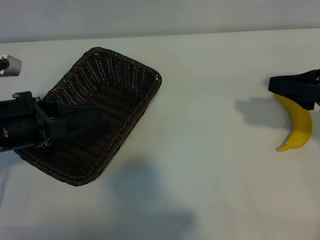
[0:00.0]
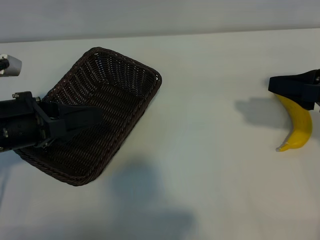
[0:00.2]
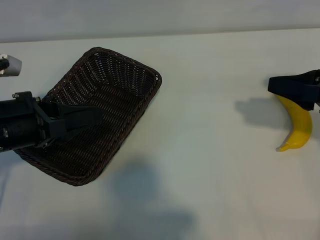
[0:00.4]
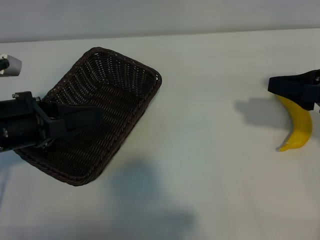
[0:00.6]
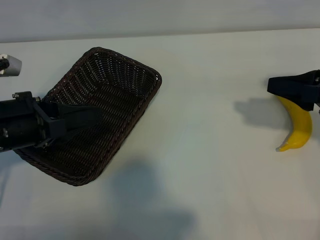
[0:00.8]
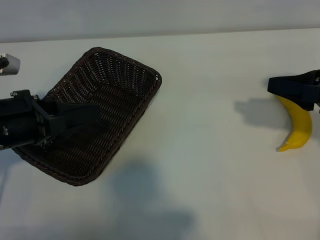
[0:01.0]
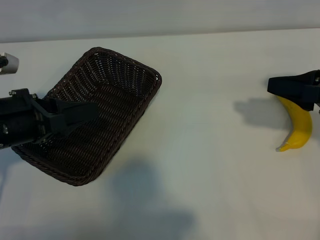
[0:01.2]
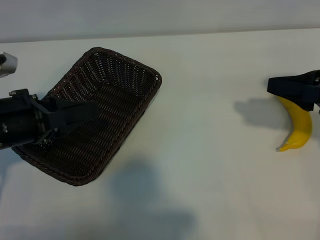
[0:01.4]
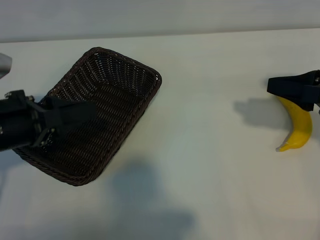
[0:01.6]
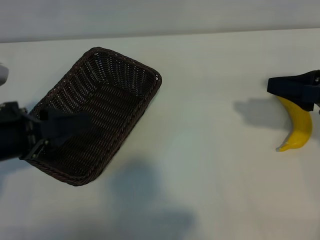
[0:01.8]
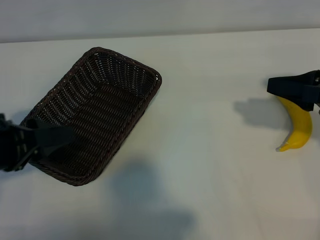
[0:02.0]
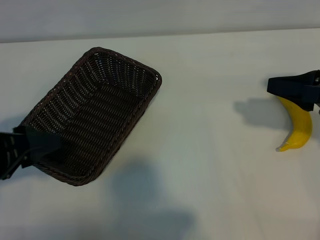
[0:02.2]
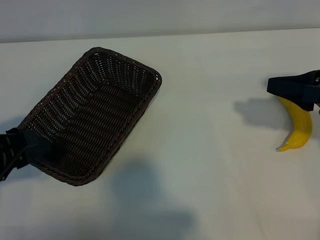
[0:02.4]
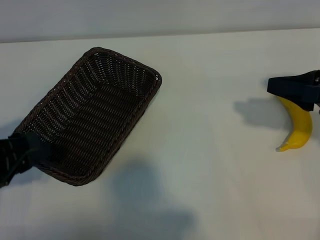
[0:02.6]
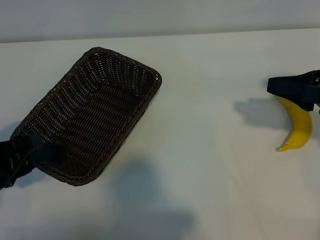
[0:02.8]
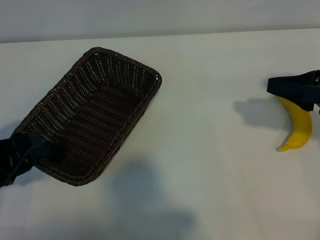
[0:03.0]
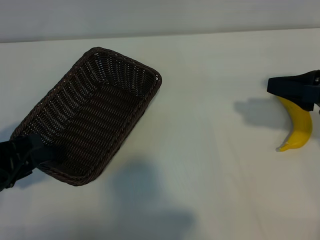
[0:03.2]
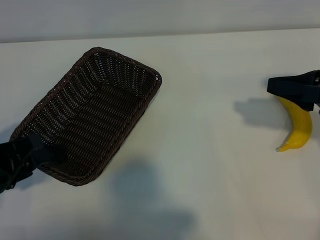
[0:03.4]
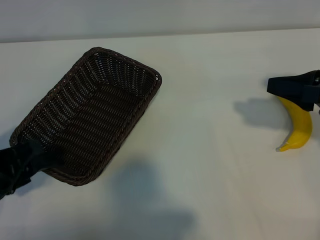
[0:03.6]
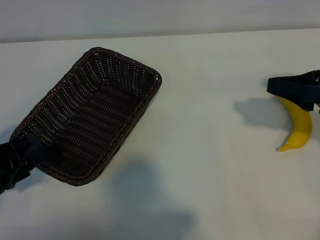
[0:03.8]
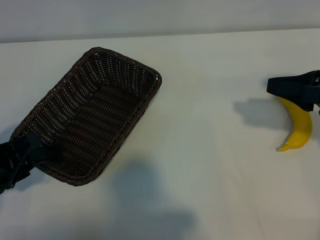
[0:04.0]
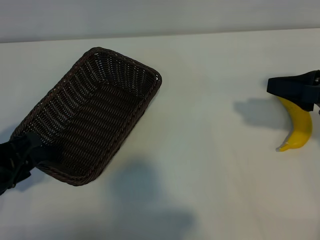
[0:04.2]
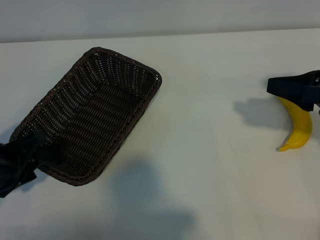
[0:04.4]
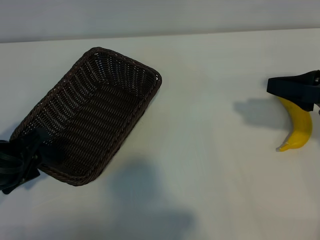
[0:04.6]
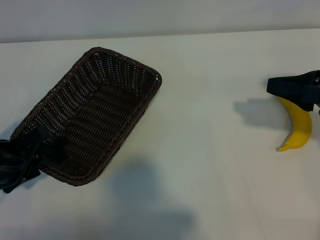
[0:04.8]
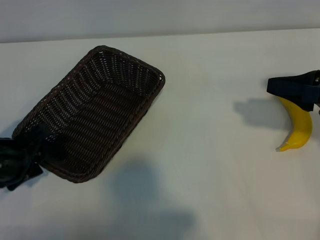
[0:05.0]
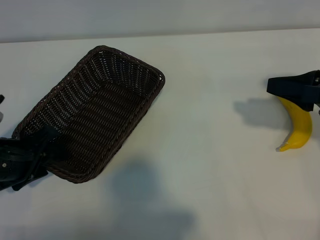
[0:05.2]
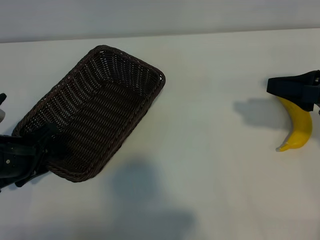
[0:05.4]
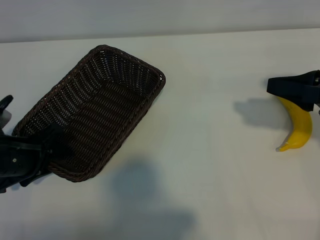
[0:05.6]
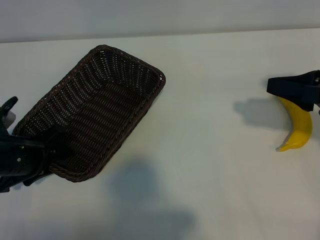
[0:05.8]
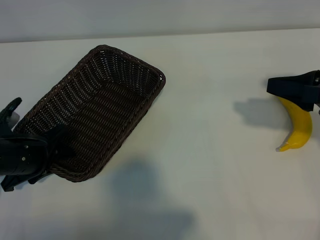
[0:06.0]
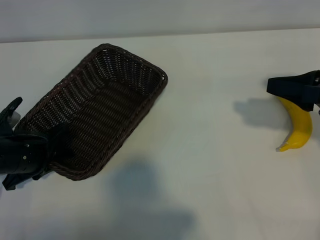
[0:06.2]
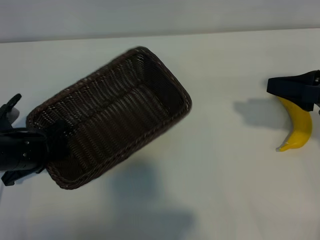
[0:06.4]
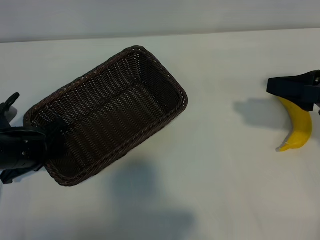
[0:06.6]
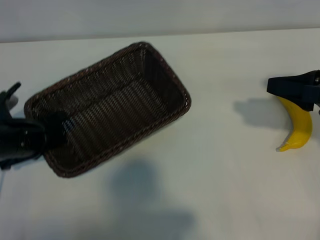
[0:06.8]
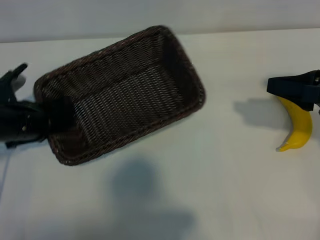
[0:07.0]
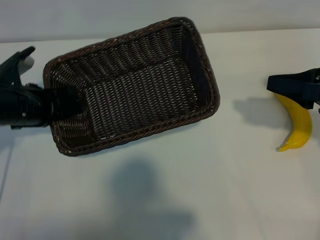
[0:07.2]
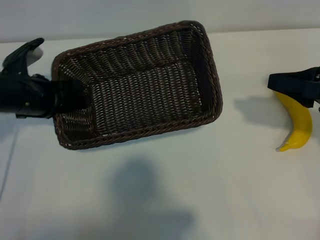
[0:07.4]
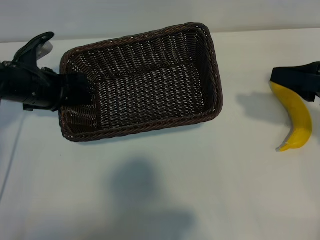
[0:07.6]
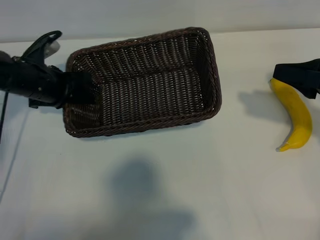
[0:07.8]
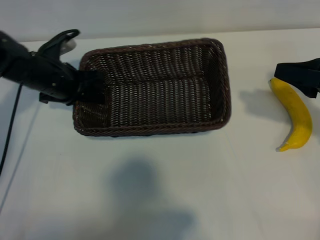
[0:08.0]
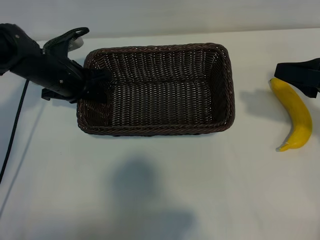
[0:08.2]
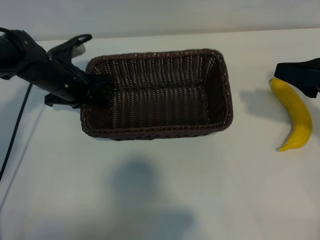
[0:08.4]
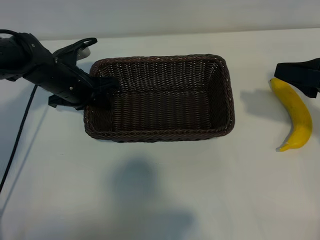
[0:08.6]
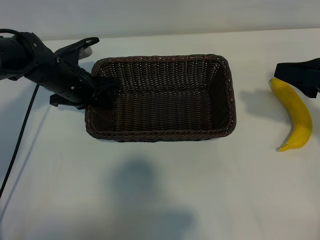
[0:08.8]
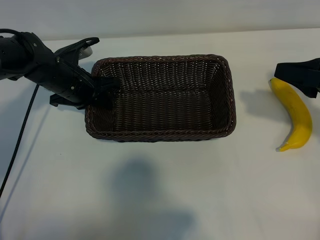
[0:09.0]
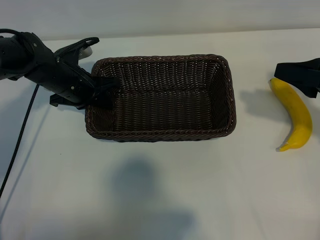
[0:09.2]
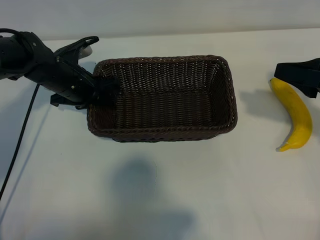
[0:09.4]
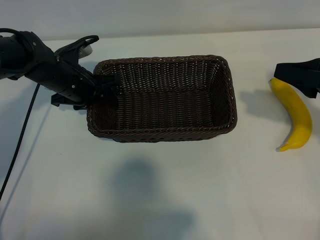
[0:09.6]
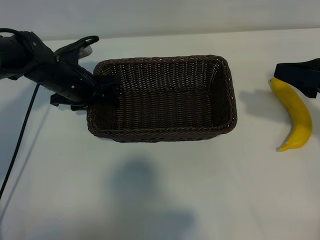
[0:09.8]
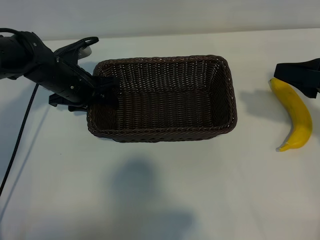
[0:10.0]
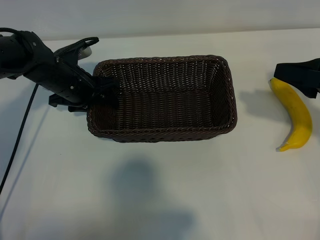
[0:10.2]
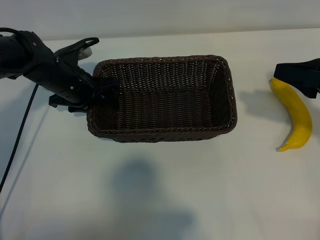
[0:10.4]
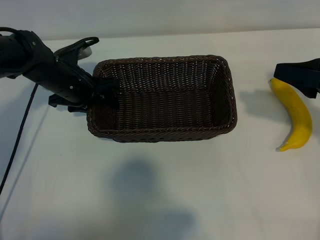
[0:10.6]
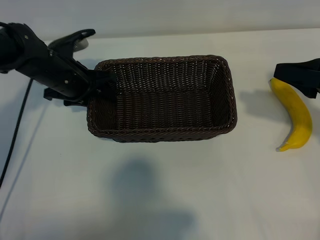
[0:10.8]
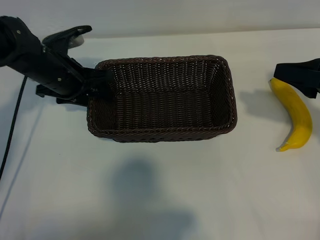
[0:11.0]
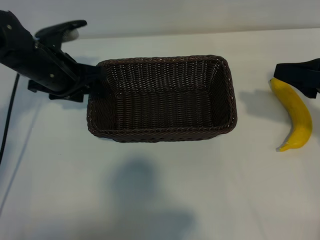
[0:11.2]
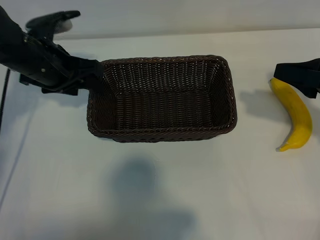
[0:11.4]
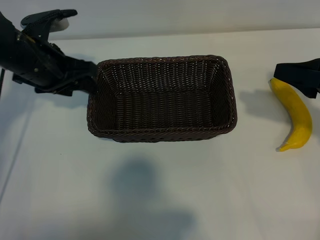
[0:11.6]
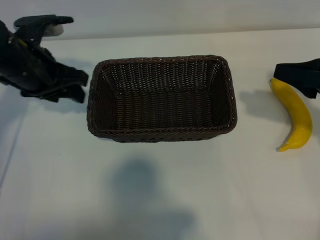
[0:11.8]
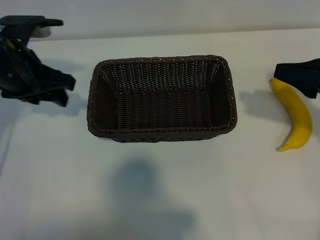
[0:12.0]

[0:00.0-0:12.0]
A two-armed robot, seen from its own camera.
Task of the whole recording: pick up the banana and put it into the basket.
Step, 0:00.0 to 0:06.4: Grasp the basket with the left gripper.
Step, 0:06.6 to 0:11.2: Place the basket in the center of the table with the left gripper.

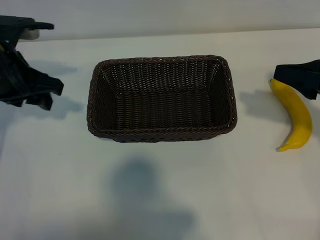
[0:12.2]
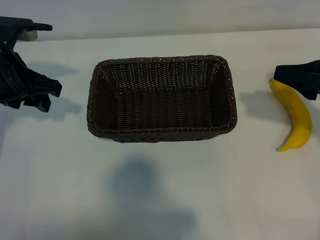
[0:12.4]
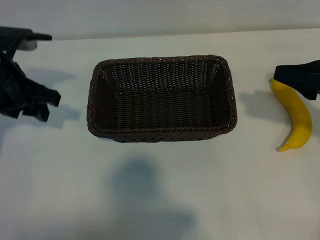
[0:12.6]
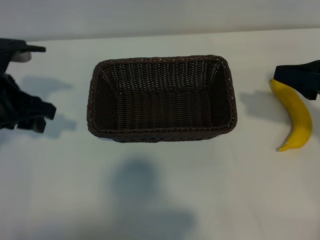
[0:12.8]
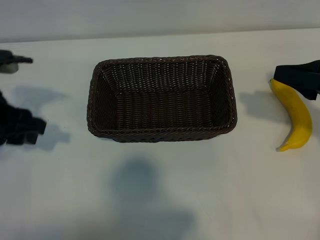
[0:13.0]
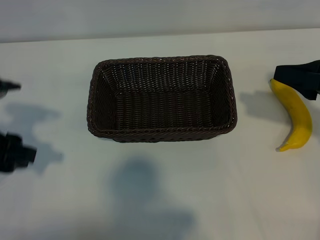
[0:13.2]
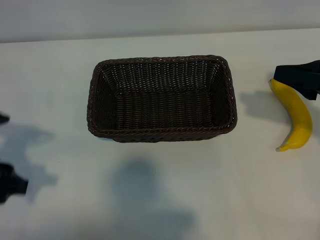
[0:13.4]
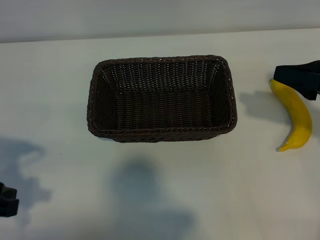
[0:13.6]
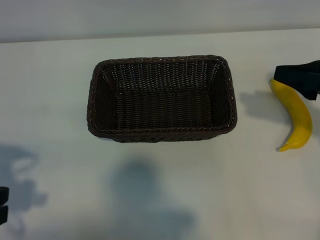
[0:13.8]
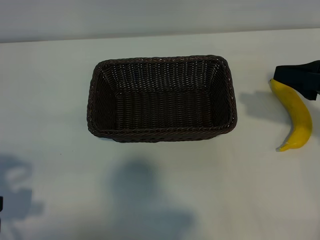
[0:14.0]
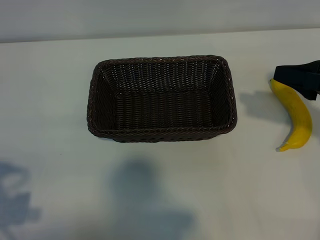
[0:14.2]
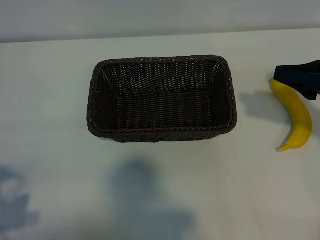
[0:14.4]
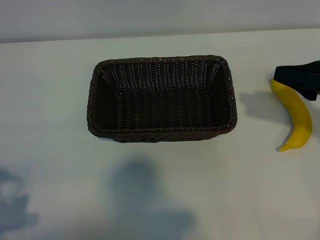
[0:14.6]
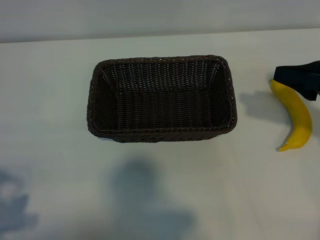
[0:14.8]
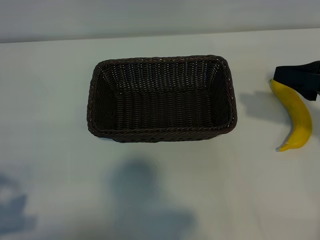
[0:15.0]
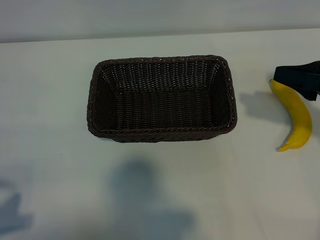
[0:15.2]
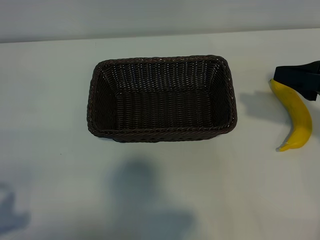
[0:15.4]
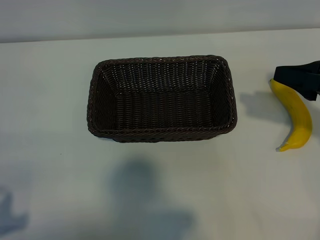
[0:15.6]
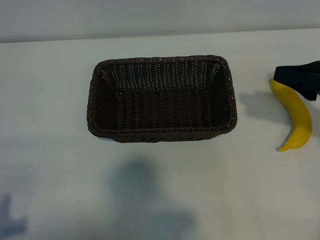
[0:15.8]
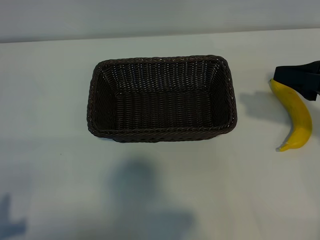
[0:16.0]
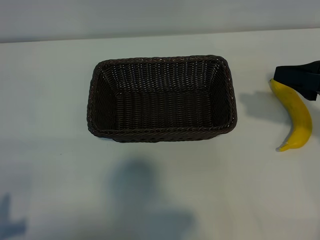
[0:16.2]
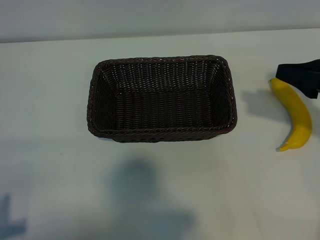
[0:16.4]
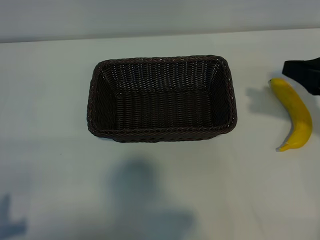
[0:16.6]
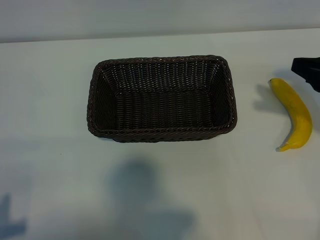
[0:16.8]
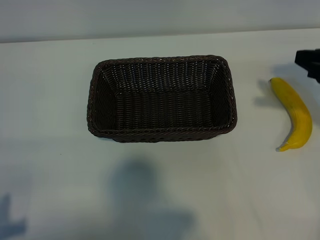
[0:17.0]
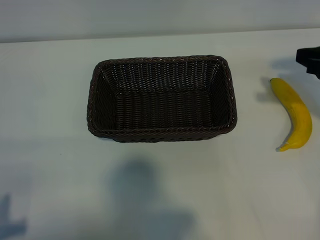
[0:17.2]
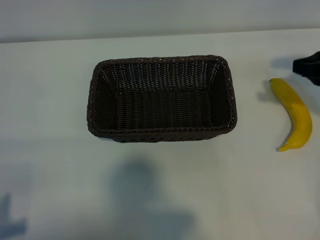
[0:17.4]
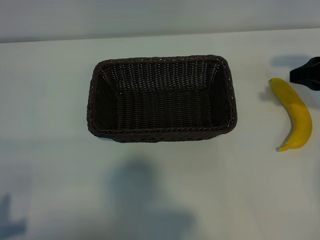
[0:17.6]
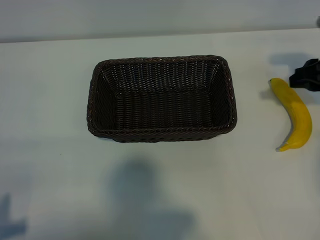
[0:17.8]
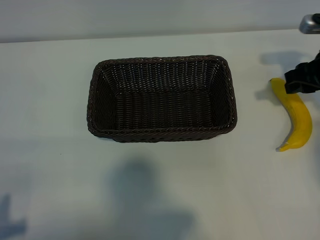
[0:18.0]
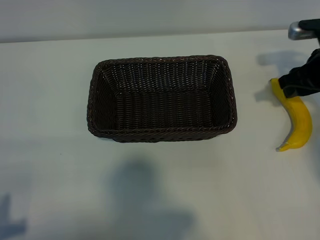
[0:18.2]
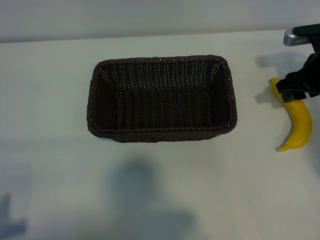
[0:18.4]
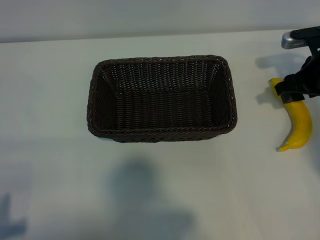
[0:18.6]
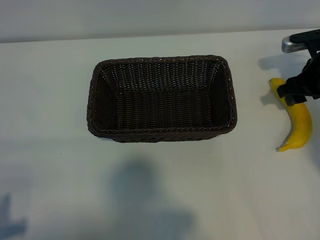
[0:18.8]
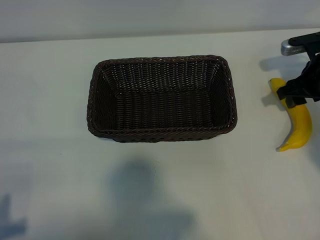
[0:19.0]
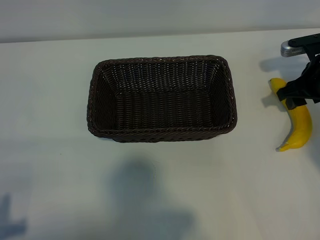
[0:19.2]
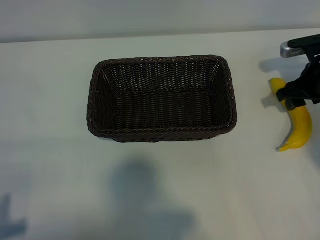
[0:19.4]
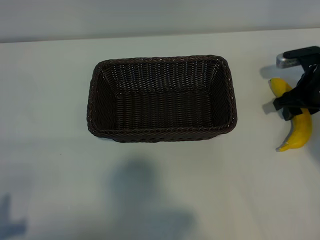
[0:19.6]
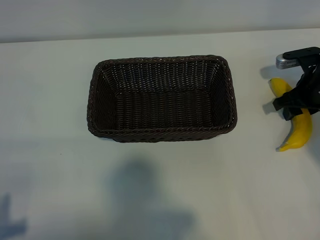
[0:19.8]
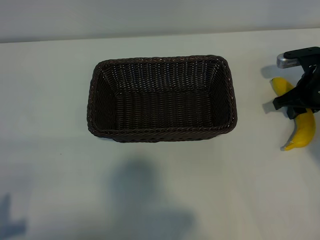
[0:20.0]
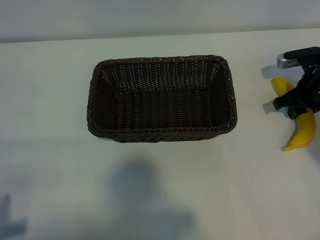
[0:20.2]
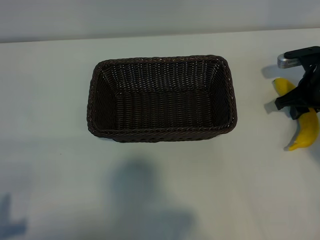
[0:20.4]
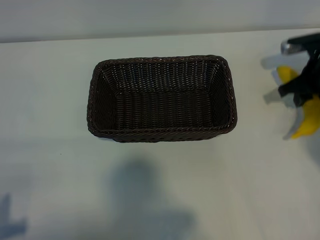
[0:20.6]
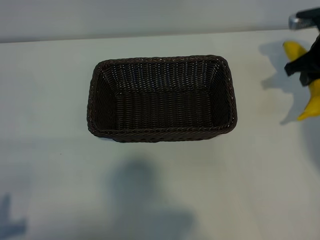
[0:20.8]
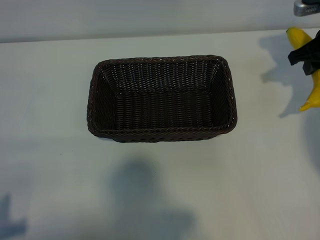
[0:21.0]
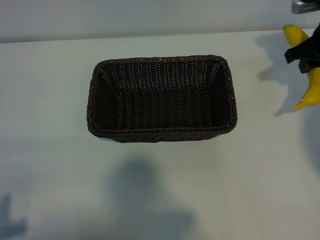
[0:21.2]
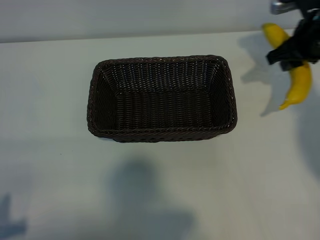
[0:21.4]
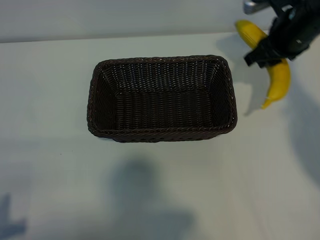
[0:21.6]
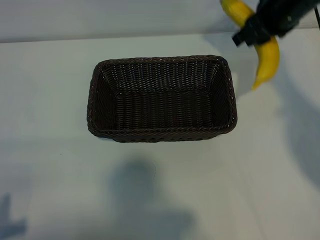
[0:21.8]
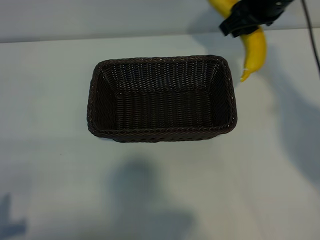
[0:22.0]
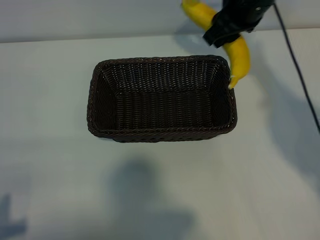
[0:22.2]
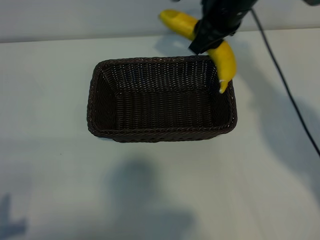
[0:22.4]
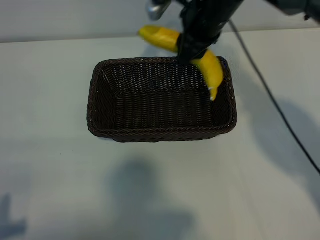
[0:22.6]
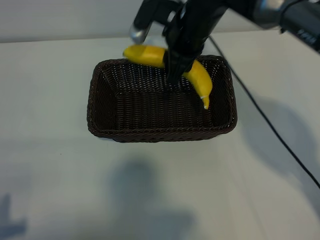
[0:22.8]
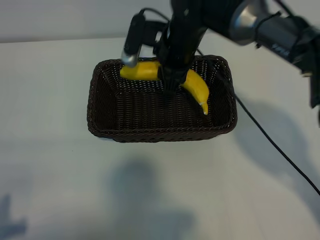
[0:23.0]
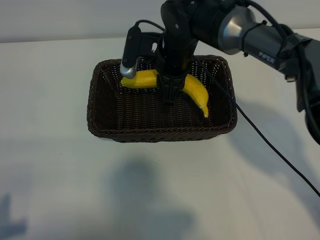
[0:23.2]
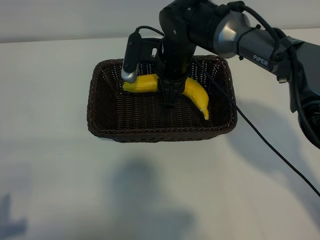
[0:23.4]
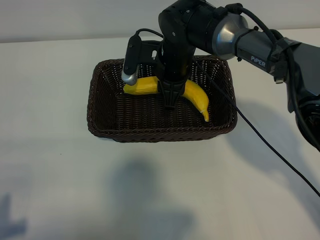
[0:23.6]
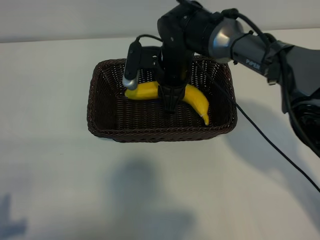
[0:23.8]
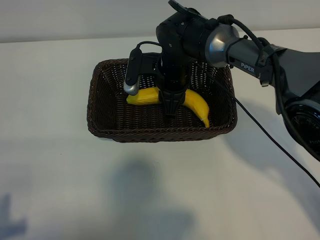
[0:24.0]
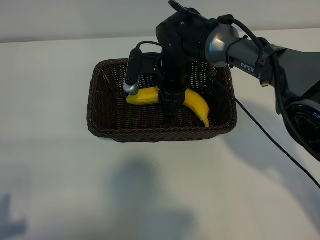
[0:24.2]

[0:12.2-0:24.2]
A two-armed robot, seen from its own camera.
Task of the whole recording: pick up the banana and put it into the basket.
Step, 0:12.2 to 0:20.0: Grasp the banana with right gripper.
